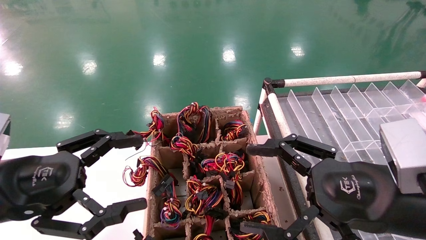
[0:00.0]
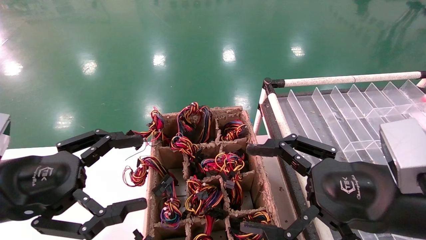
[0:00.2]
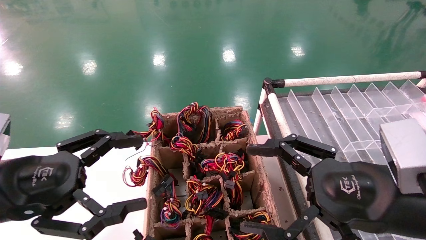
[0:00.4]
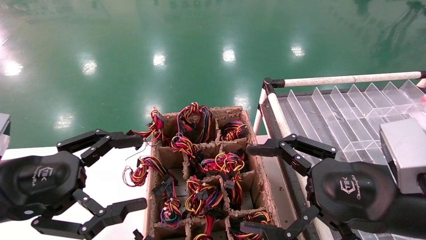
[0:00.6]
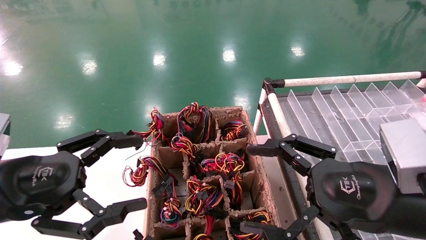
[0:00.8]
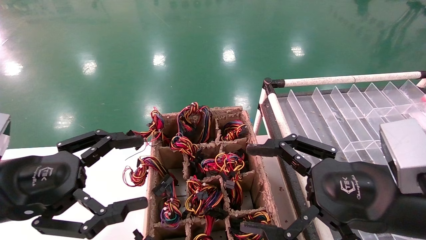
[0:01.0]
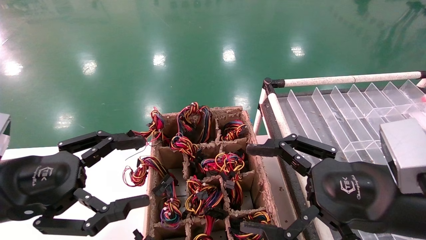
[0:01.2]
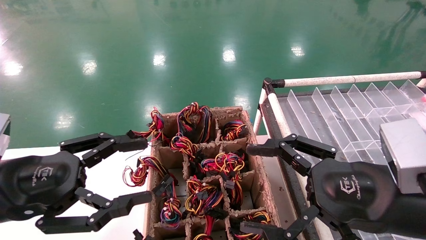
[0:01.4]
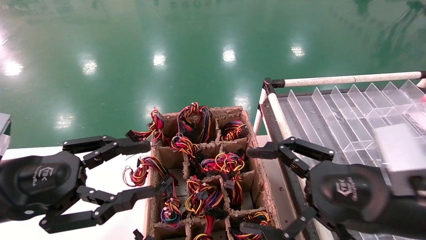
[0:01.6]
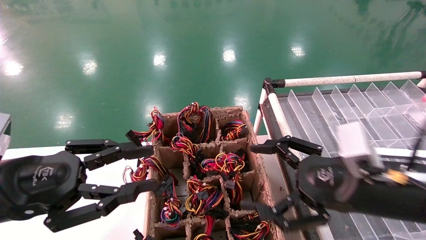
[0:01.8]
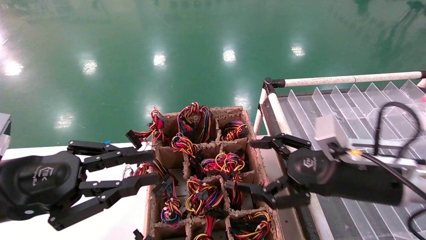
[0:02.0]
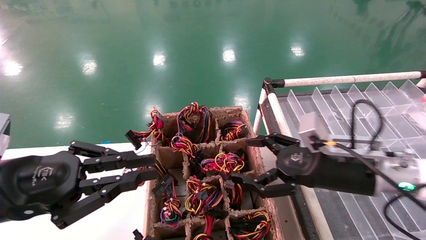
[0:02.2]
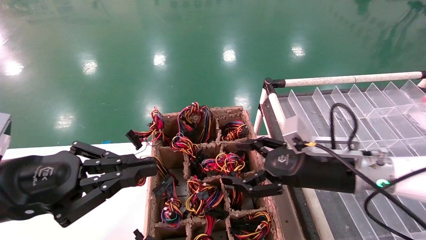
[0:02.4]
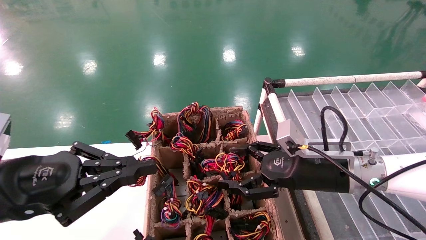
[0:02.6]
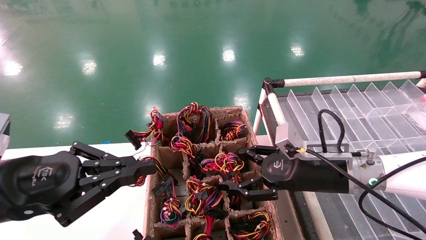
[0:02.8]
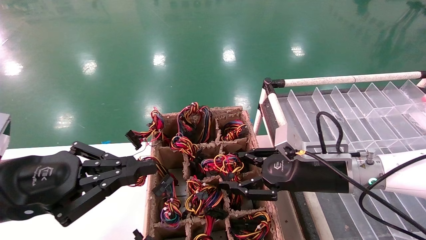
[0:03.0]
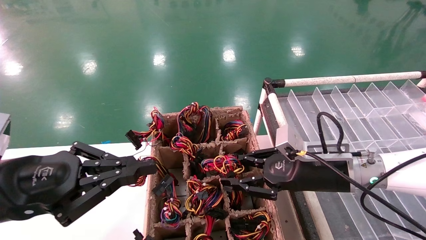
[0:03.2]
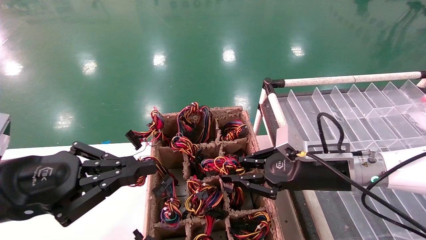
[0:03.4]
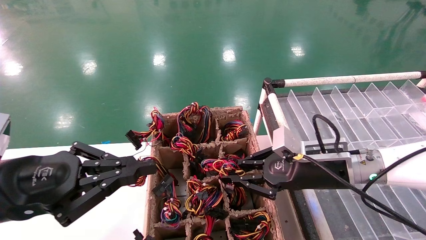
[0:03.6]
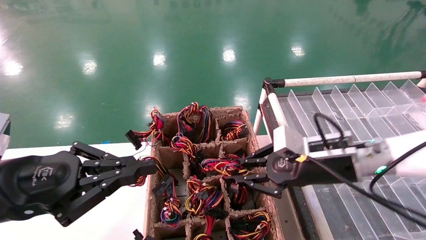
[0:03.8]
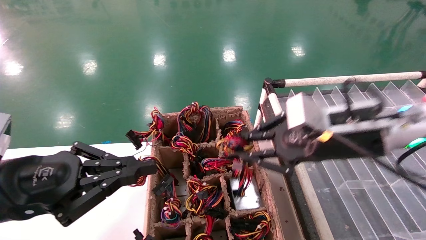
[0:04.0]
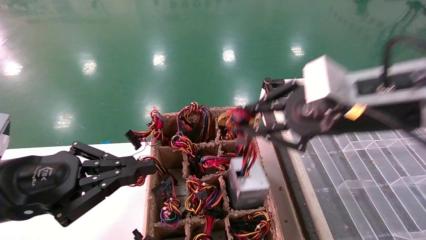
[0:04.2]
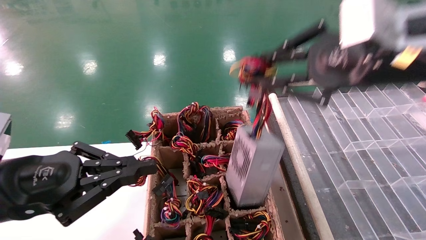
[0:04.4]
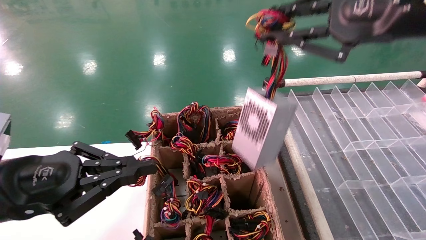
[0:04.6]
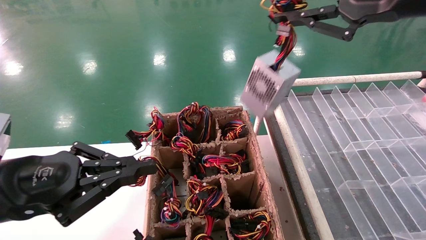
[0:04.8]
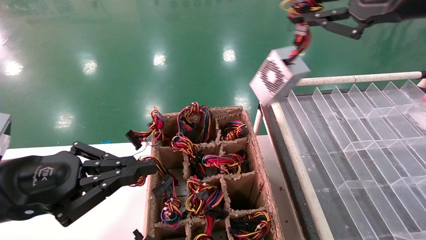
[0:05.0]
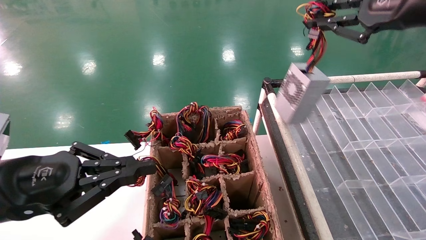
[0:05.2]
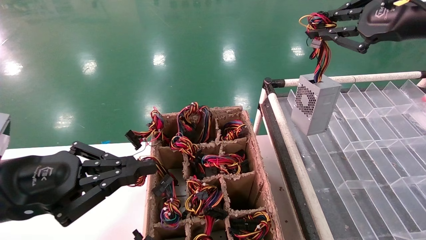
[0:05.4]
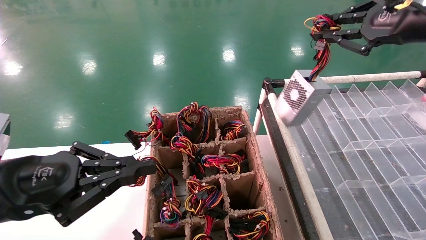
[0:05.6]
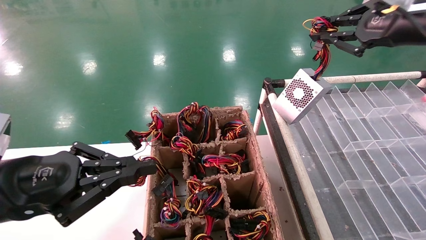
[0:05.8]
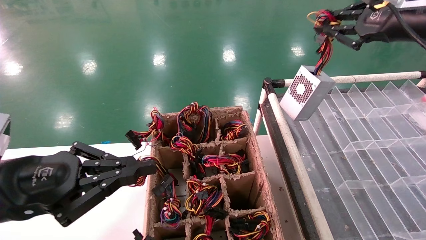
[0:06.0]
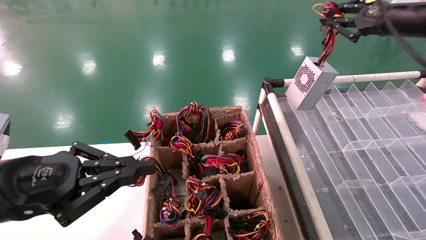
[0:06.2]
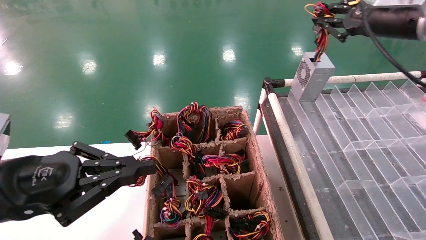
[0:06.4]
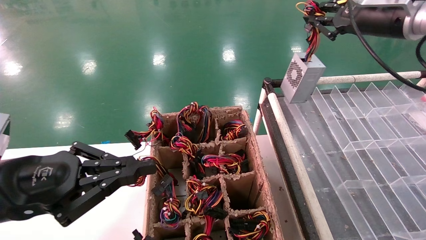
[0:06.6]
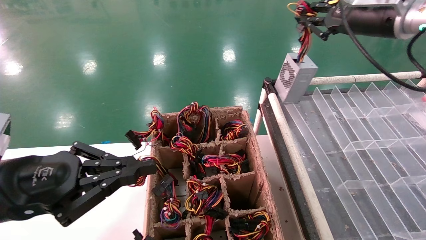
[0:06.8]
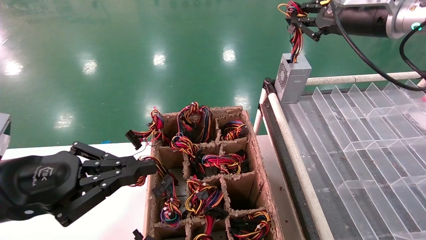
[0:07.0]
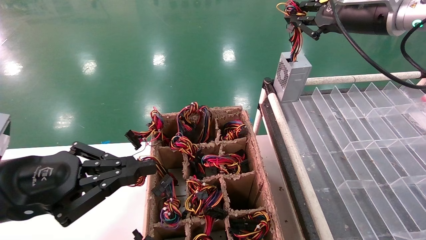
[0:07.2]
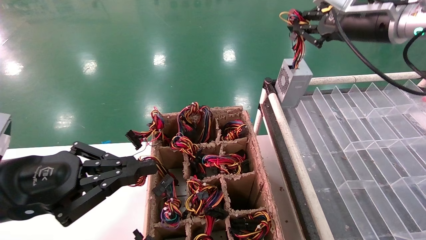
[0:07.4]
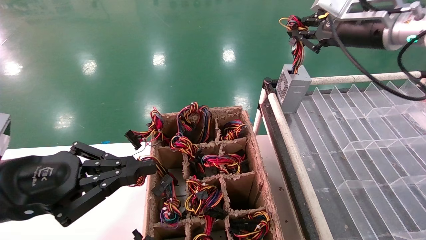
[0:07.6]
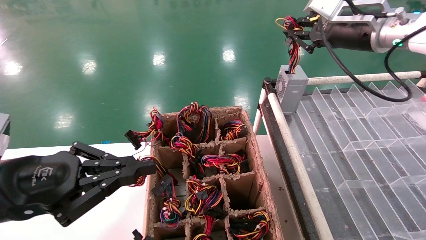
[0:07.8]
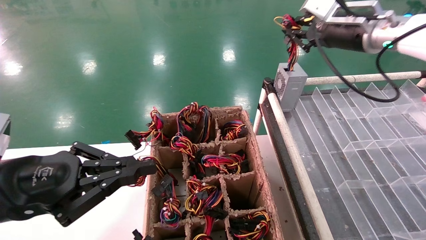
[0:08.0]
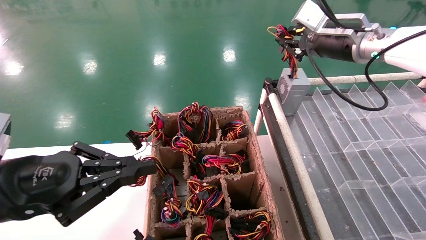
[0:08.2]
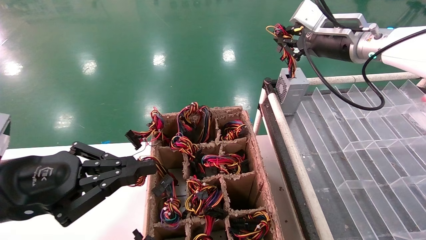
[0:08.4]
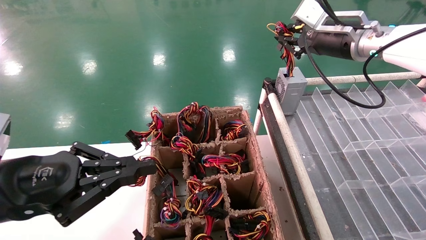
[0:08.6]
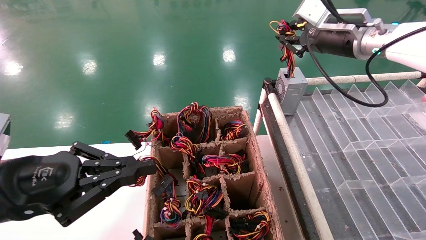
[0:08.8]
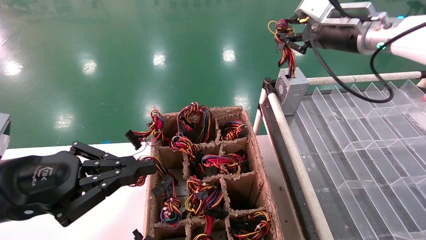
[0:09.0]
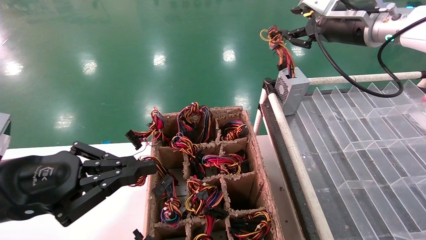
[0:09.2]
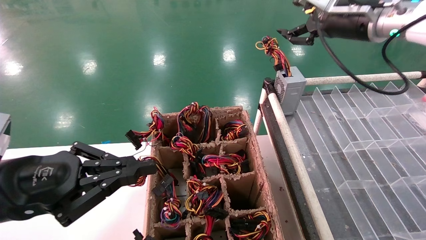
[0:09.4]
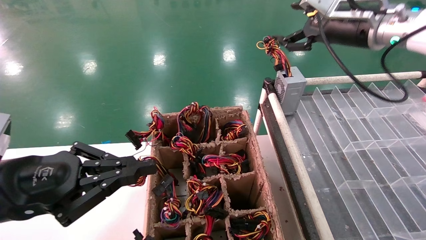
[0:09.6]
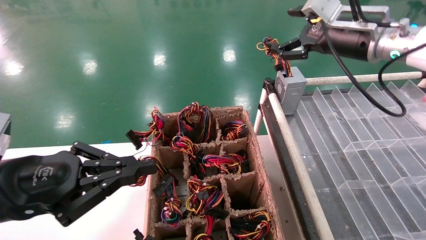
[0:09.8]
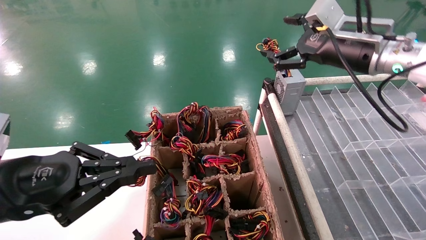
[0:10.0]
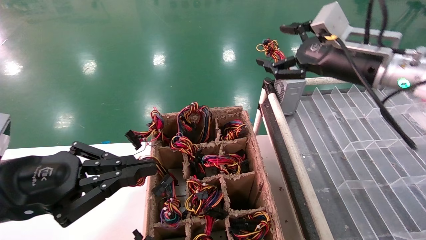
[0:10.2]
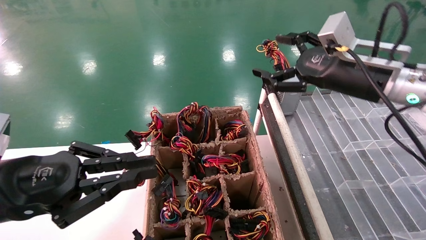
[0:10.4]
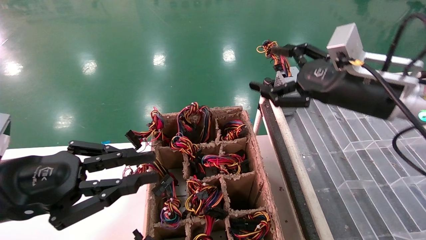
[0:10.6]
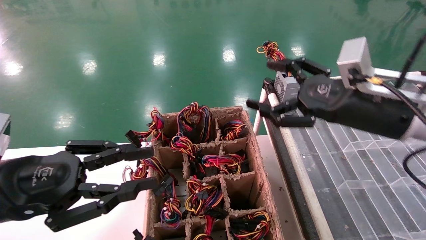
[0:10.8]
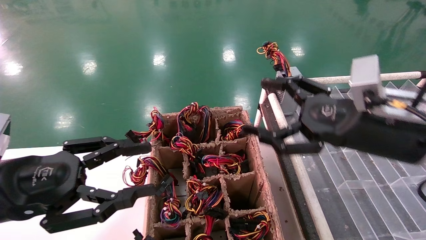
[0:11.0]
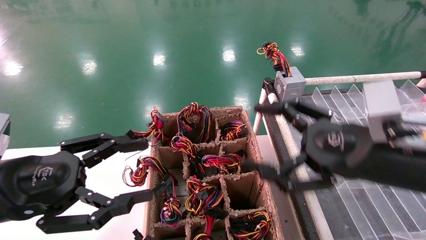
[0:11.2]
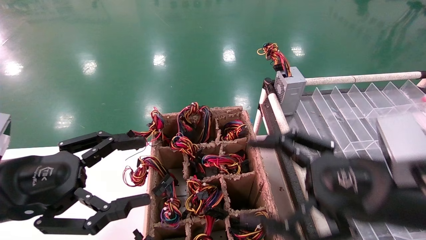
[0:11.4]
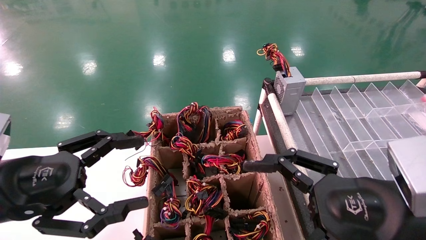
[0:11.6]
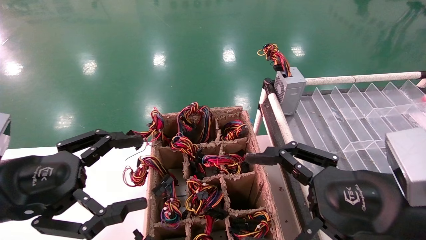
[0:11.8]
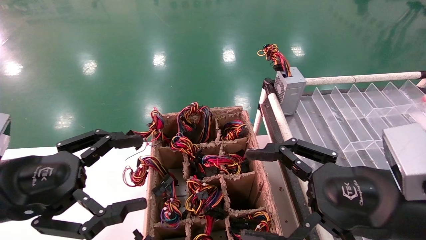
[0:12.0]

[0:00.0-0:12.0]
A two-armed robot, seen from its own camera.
Step, 0:02.0 to 0:03.8: Grab the main unit power supply from the containment box.
Step, 0:04.0 to 0:09.2: Place the main unit power supply in the designated area.
0:00.0 to 0:01.6: The grippers make only small movements.
0:01.6 to 0:03.0: The left gripper closes up. The right gripper is displaced forward by roughly 15 cm.
0:03.0 to 0:04.4: The right gripper shifts about 25 cm upward and backward, and closes.
0:04.4 to 0:06.0: The right gripper moves to the right and forward, about 15 cm.
0:06.0 to 0:07.6: The right gripper travels to the left and forward by about 10 cm.
0:07.6 to 0:09.0: The grippers make only small movements.
0:09.0 to 0:10.4: The right gripper is displaced downward and backward by approximately 10 cm, and opens.
0:10.4 to 0:12.0: The left gripper opens up. The right gripper is displaced backward and downward by some 20 cm.

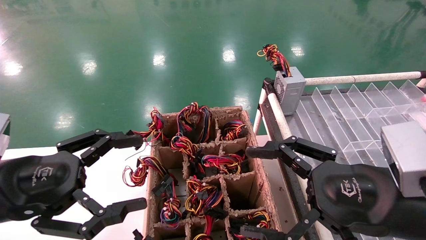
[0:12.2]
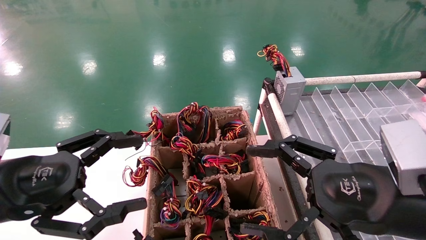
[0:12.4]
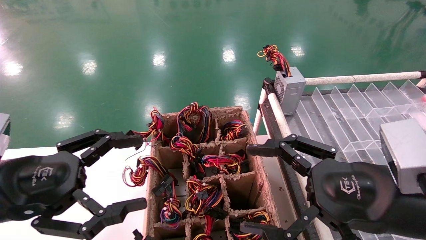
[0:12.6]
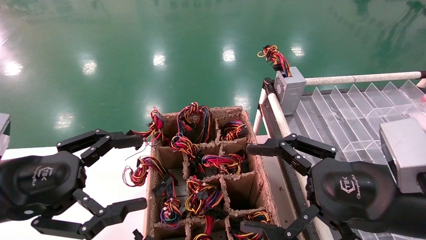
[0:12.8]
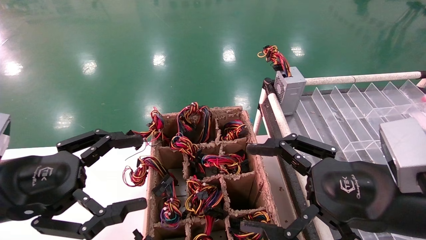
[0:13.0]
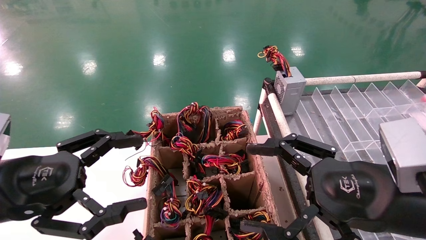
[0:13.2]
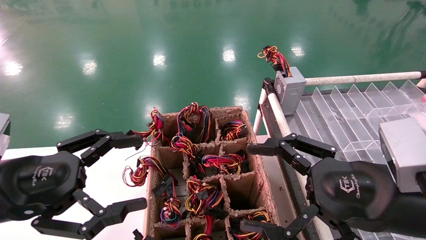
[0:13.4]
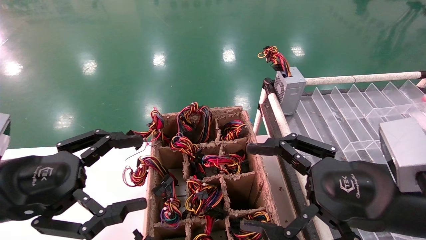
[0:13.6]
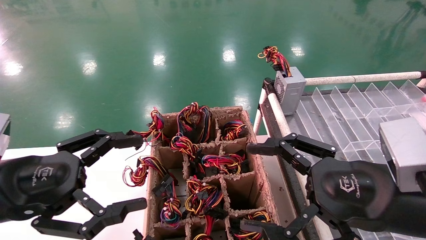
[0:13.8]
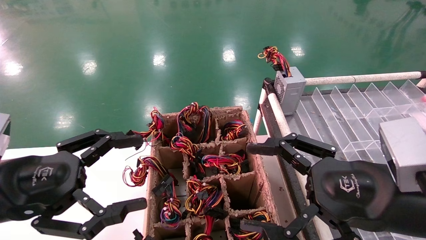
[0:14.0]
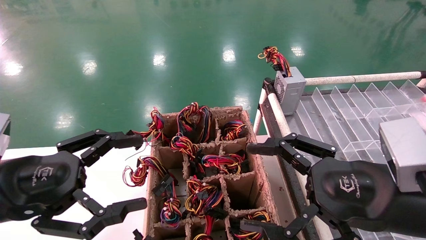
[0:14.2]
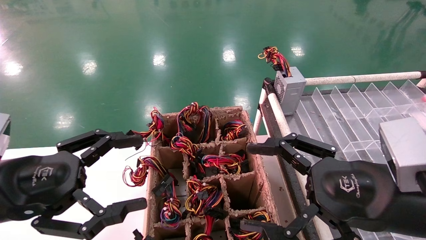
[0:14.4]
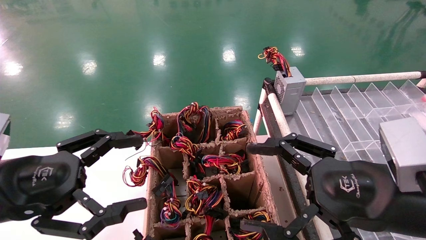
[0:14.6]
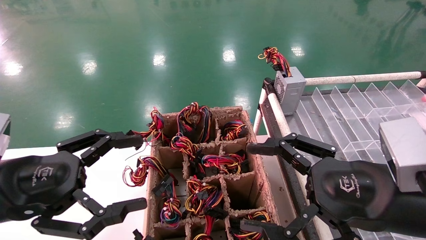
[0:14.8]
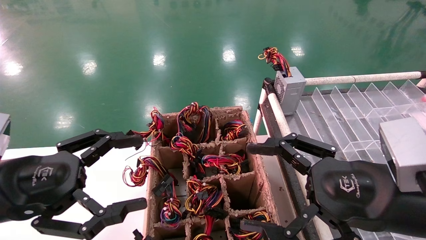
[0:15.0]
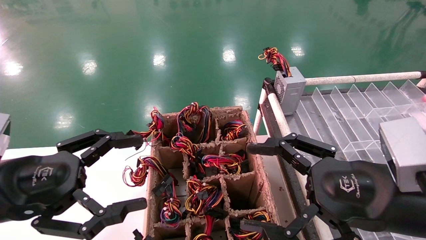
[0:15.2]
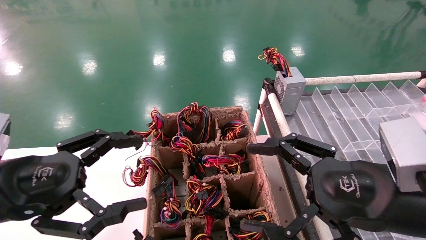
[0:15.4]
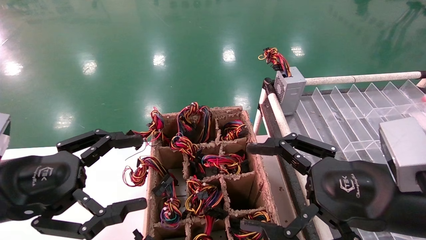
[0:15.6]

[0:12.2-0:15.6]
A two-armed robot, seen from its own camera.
0:12.2 to 0:15.6: Neither gripper changes place.
